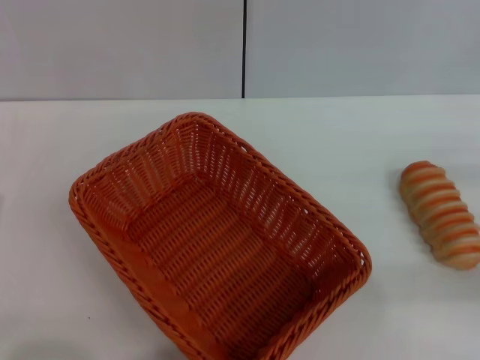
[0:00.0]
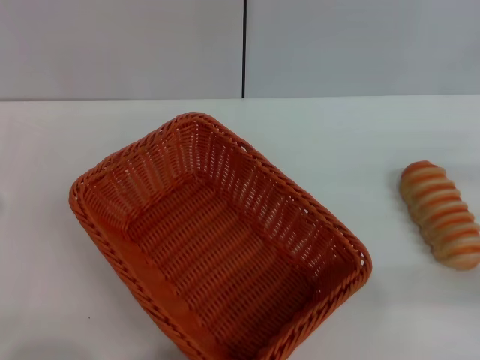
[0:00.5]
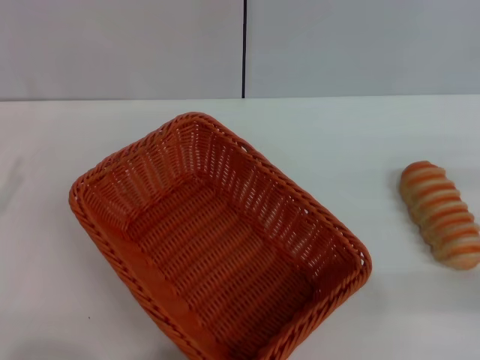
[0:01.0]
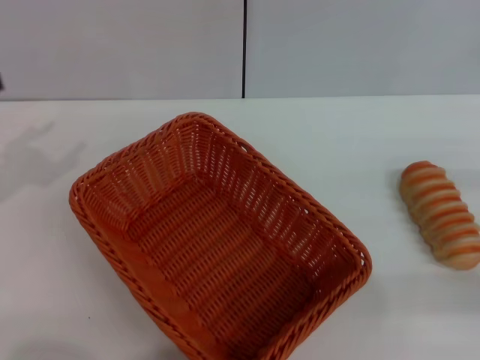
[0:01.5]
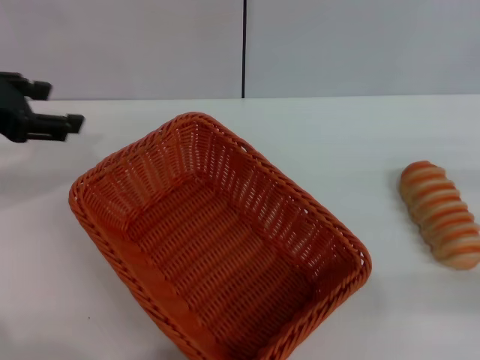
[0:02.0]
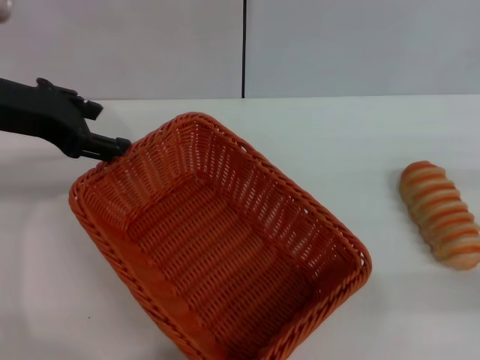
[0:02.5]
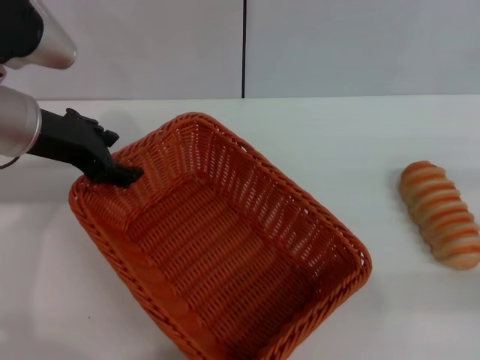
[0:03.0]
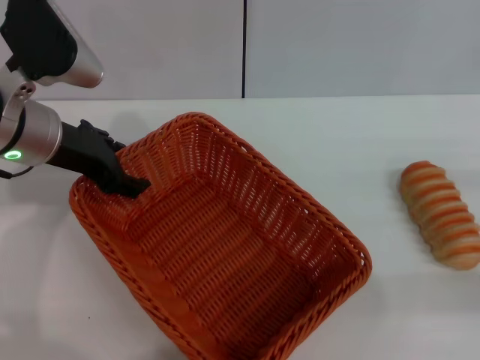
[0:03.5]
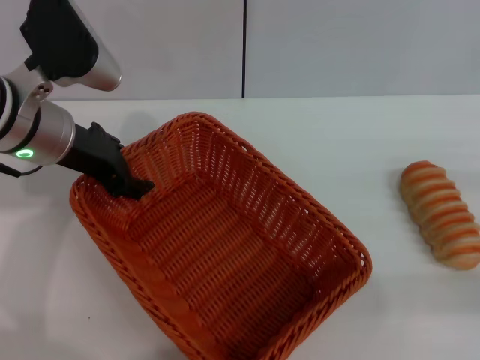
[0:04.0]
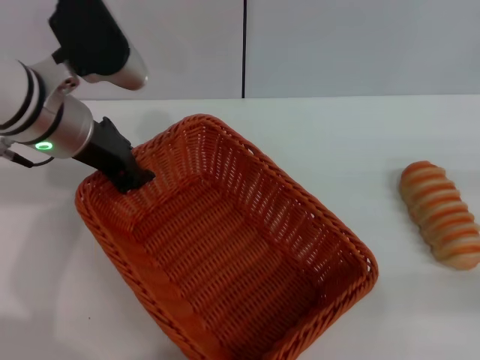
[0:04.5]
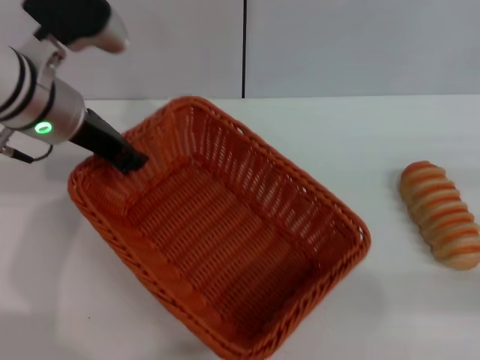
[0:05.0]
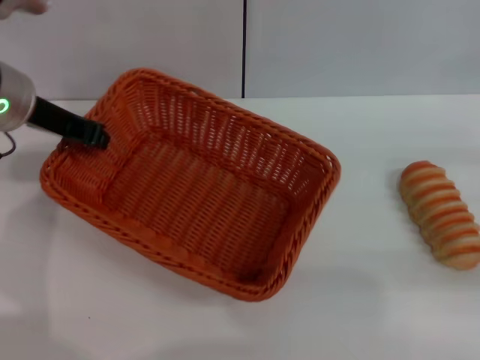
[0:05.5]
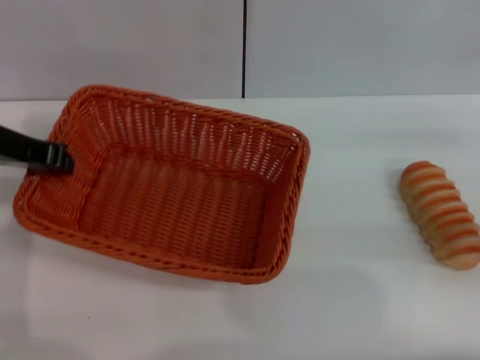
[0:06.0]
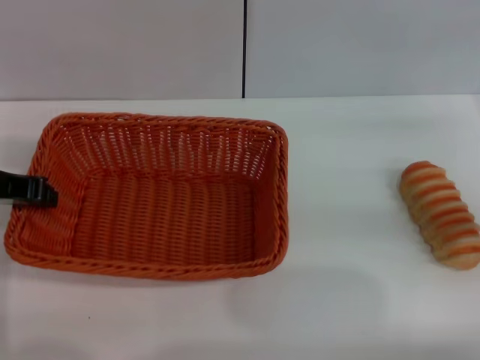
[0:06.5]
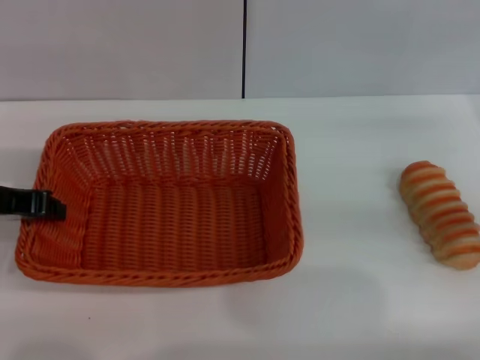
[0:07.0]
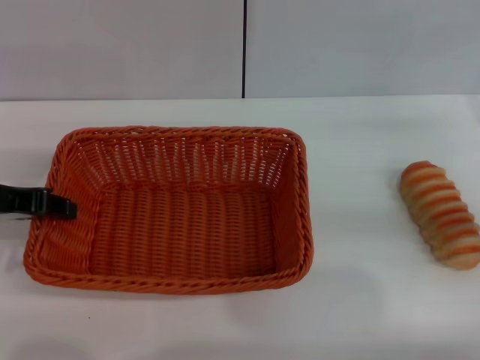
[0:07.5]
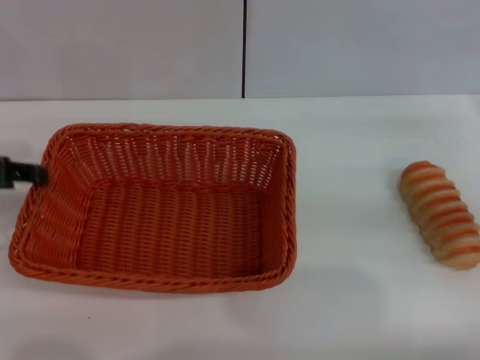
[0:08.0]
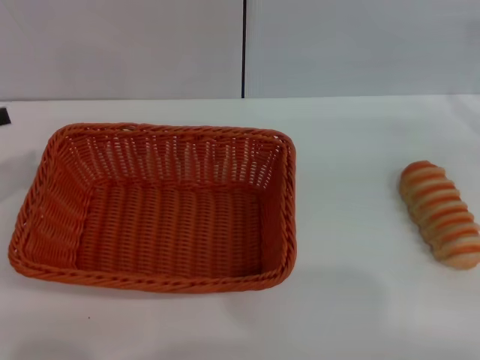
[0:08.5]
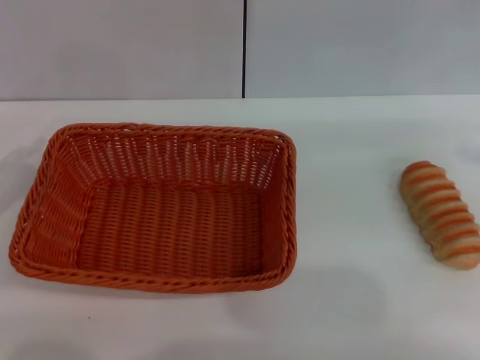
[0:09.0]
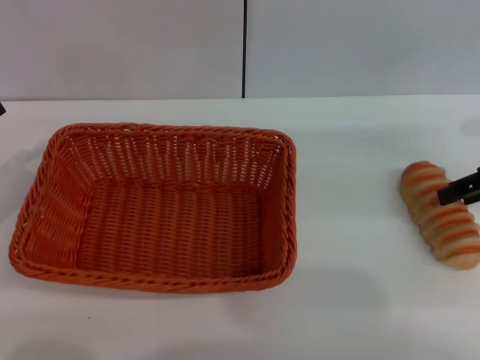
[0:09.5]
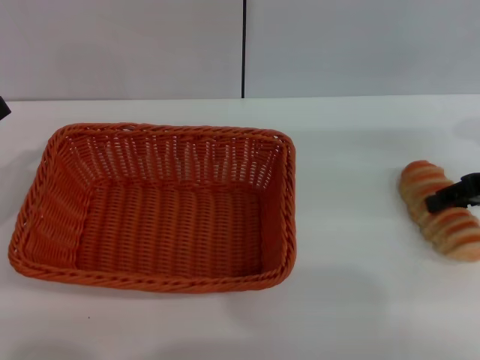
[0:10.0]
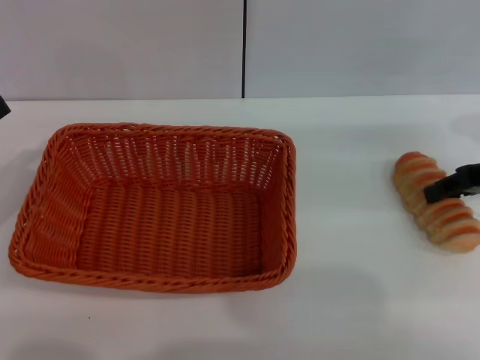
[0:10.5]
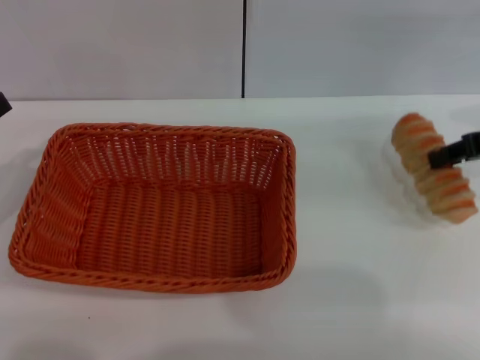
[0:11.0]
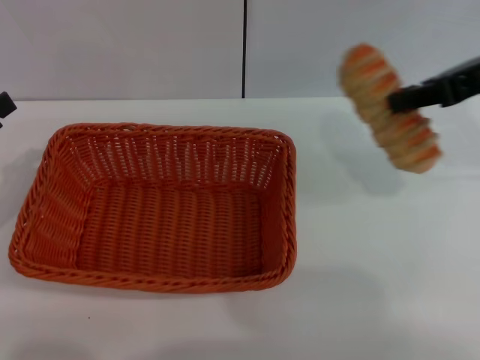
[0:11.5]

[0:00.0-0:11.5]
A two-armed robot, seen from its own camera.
Step, 0:00.0 to 0:05.0: Pick up the light basket with the left gripper.
Step, 0:05.5 to 0:08.0: Place the light basket in the center of view with the left gripper.
Step, 0:08.5 to 0:10.5: Pick up the long bread with the right gripper.
0:00.0 to 0:02.0: The left gripper shifts about 25 cm upward and forward.
0:02.0 to 0:04.0: The left gripper heads to the right and downward, covering approximately 10 cm.
0:04.0 to 0:06.0: The right gripper heads forward, covering some 5 cm; the left gripper shifts about 5 cm to the left, and closes its fingers.
0:06.0 to 0:07.5: The left gripper is displaced backward by about 5 cm.
0:07.5 to 0:09.5: The left gripper goes approximately 10 cm to the left, and opens.
0:09.5 to 0:11.5: The right gripper travels upward and to the left by some 10 cm, and closes its fingers.

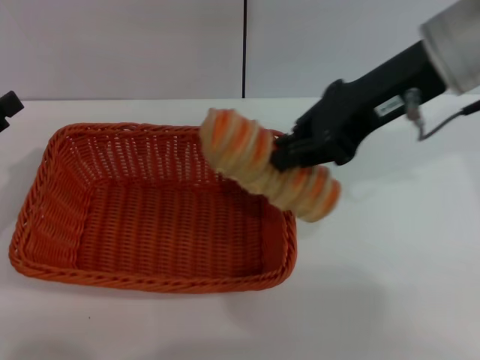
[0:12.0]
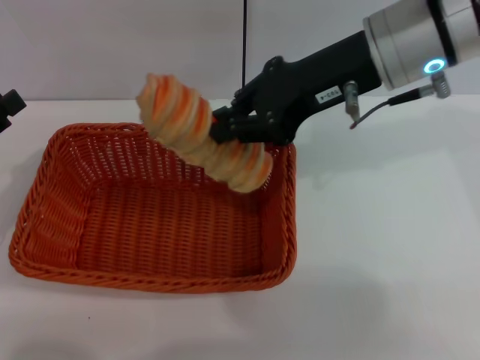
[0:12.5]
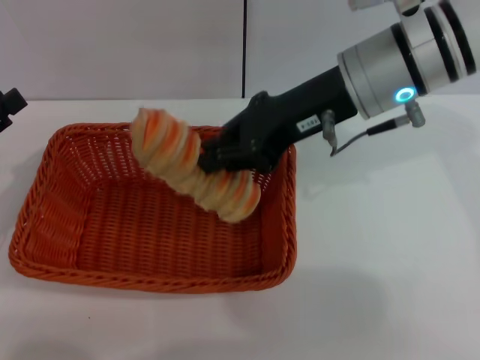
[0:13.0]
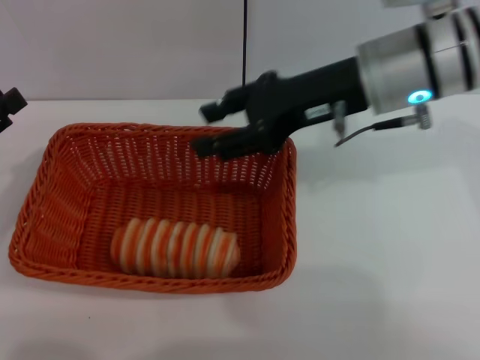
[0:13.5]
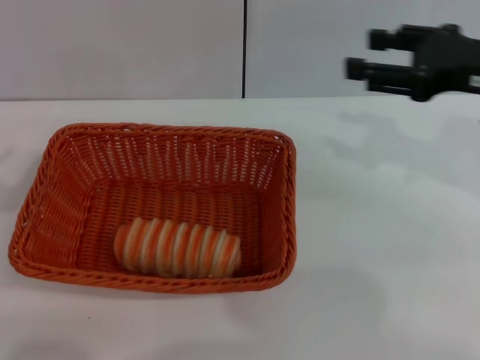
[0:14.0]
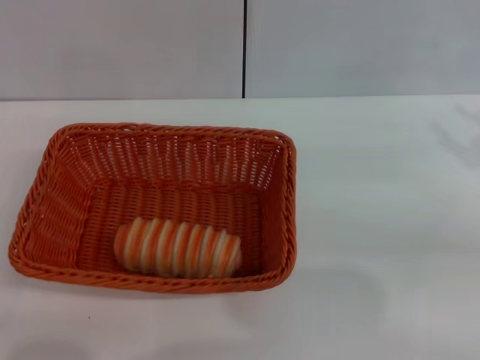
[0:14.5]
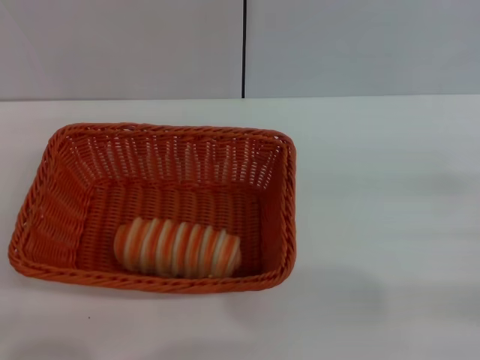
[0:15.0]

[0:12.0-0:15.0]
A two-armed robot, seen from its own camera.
0:12.0 to 0:13.5: The right gripper ends up some 5 cm from where it was, and opens its fingers.
0:13.5 to 0:15.0: The right gripper moves to the right, backward and downward, about 30 cm, and opens up. Meanwhile the left gripper moves backward, about 10 cm.
